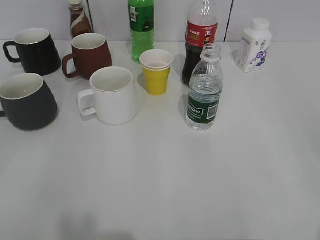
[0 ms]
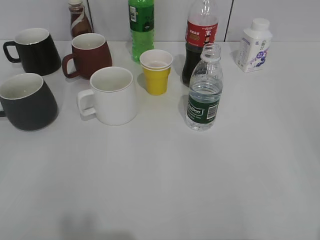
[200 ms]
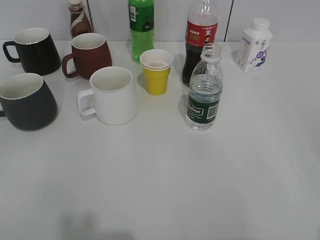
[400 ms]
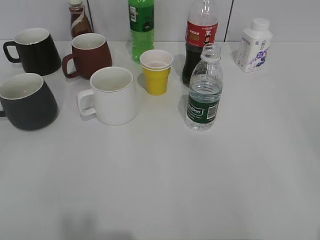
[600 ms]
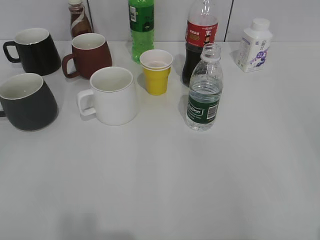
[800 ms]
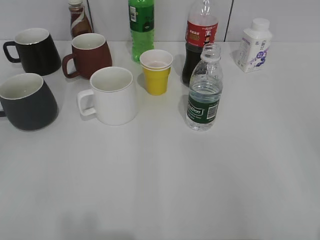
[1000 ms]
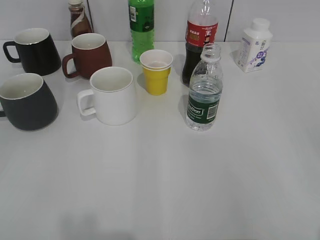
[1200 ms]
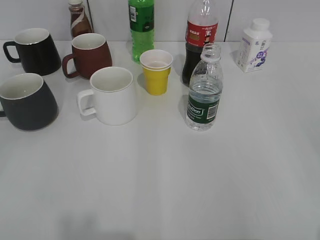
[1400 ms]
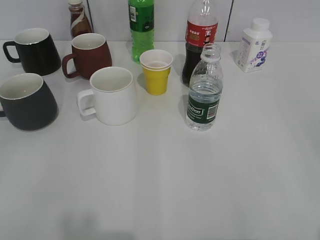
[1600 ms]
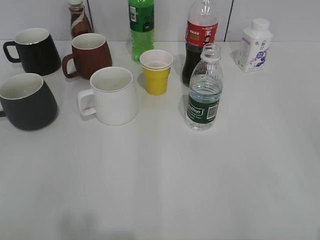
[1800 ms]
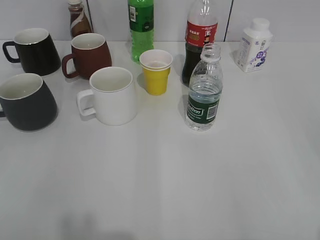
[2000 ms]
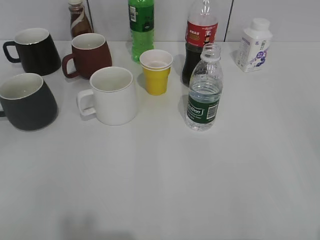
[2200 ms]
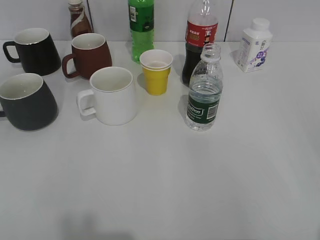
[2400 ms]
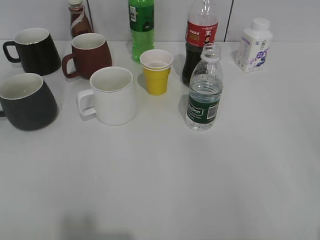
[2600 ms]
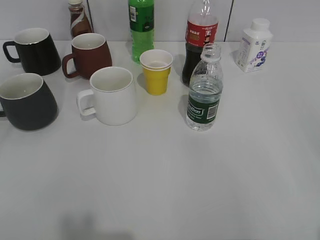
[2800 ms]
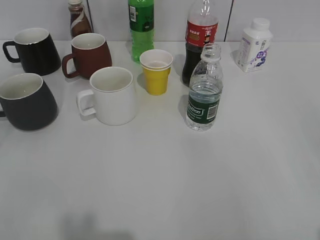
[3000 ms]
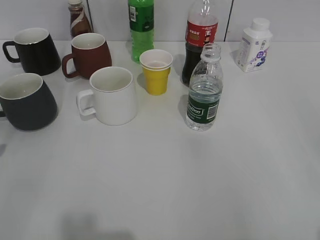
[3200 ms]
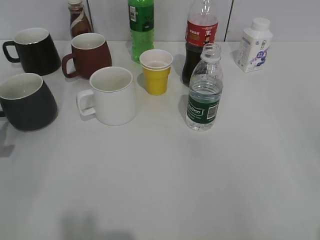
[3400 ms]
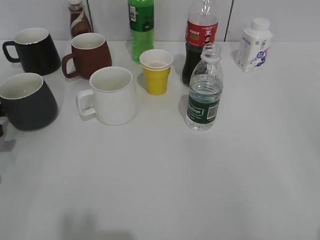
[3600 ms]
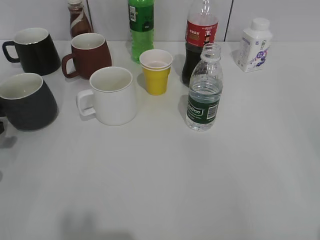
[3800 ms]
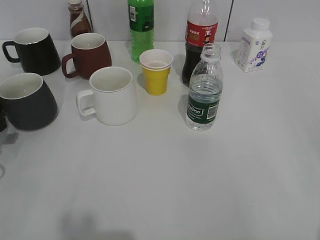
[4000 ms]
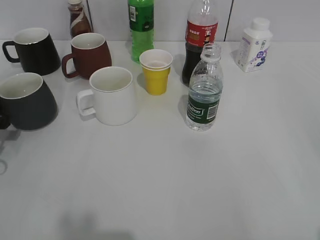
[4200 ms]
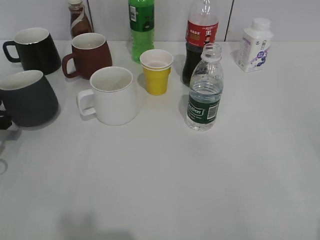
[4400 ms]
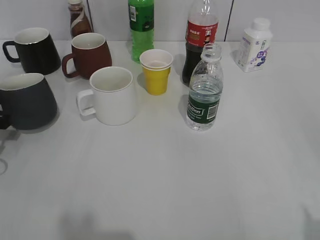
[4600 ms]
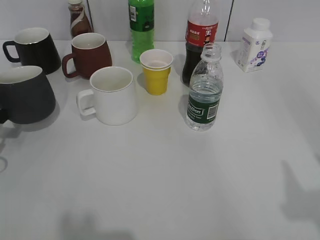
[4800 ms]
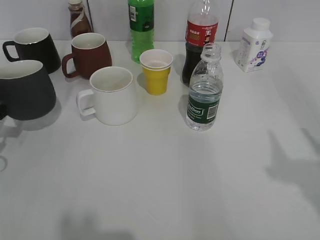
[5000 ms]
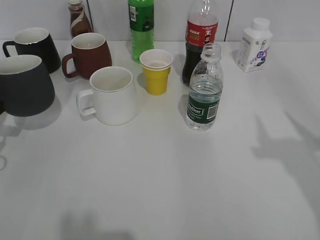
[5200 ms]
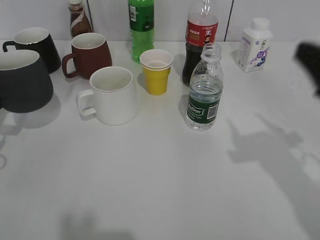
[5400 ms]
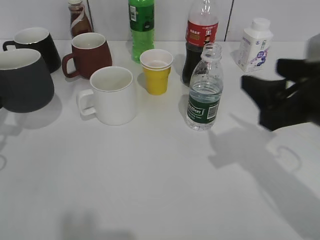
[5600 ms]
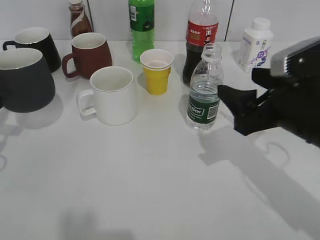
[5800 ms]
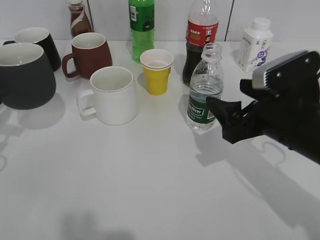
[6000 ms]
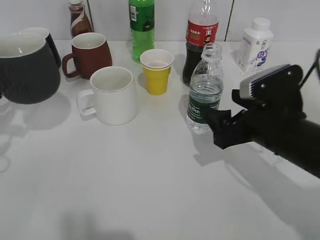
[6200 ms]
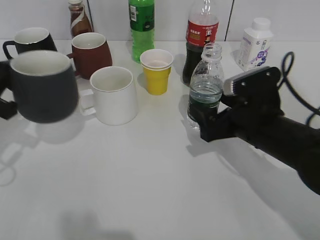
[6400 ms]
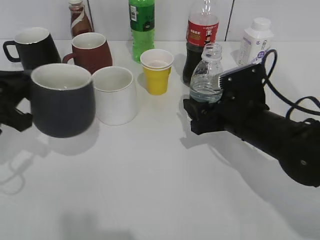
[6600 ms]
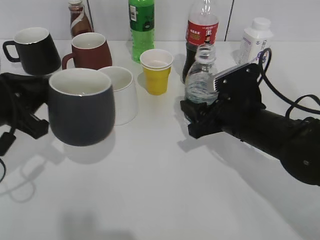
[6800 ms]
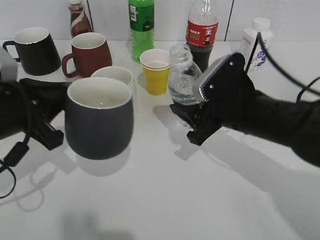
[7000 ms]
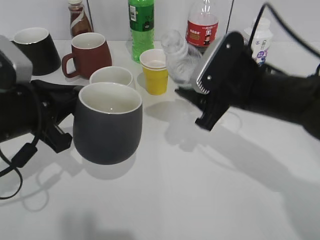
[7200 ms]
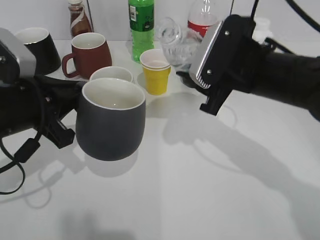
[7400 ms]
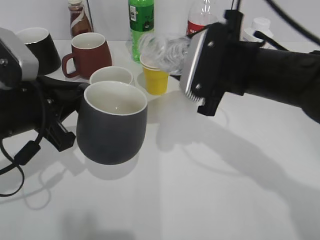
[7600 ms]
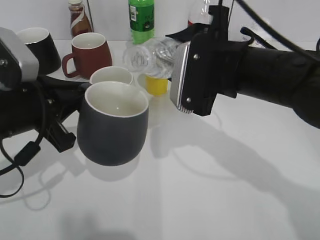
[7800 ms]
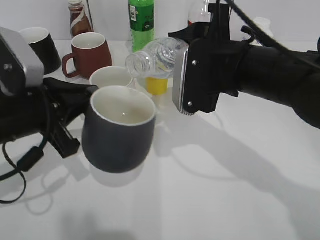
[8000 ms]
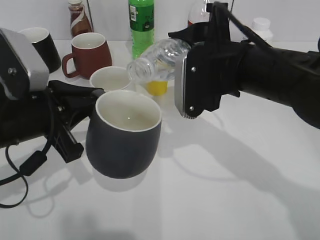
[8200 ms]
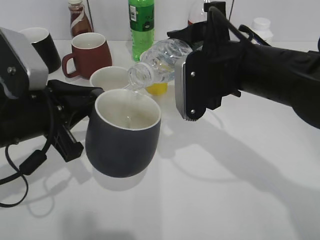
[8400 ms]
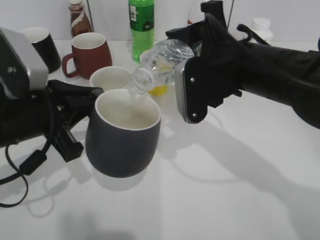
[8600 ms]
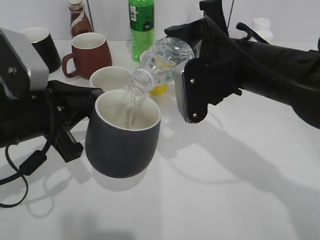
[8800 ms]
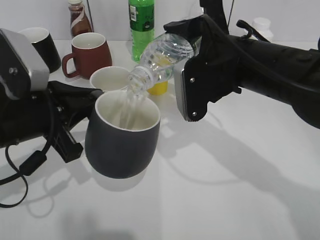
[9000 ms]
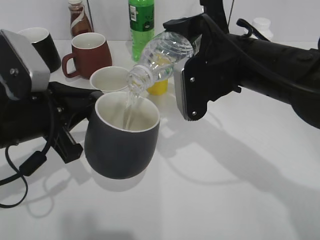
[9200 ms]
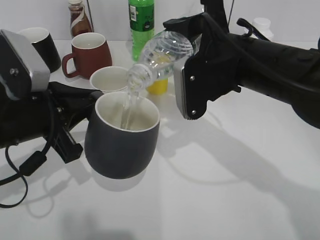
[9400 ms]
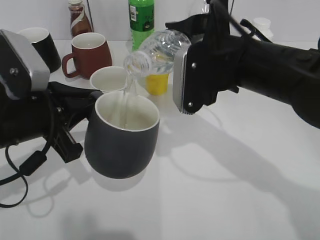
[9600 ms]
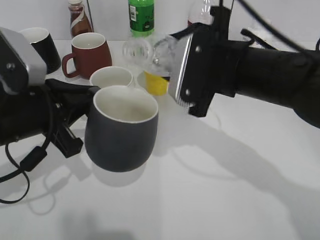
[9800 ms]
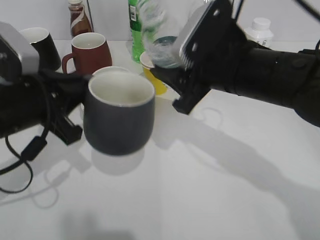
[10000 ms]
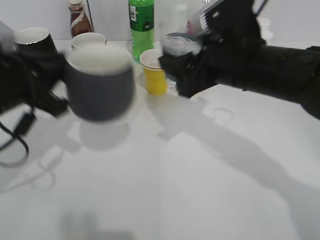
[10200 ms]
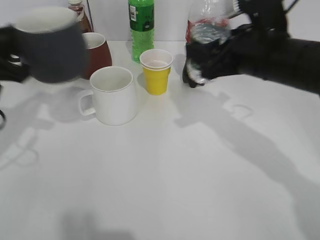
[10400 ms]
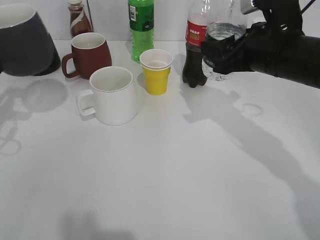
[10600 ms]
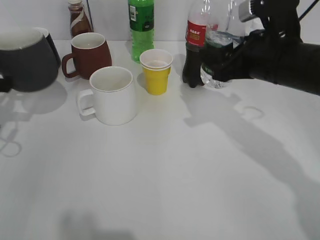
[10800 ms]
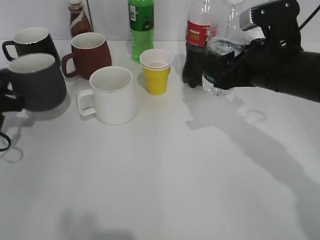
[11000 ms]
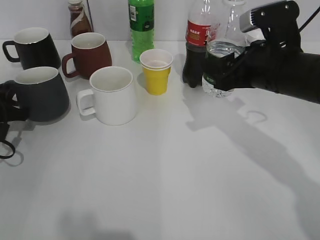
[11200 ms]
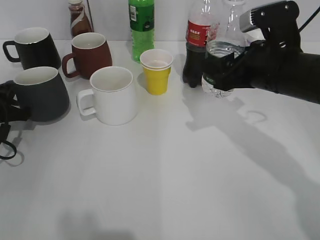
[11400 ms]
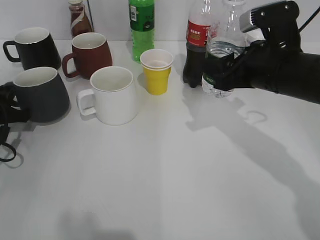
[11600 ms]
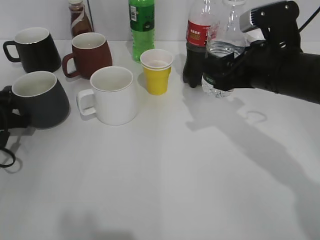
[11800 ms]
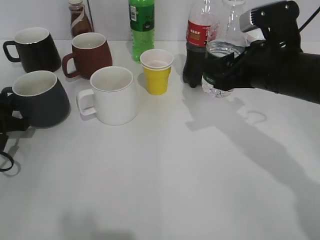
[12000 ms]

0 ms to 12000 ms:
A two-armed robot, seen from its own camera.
Step, 2000 ms to 4400 ms: Grasp the black cup with left gripper.
Step, 4600 ms to 5200 ms: Lift the black cup with left gripper.
Step, 5400 ms to 6600 ms: Grasp the bottle with water with right gripper.
Step, 6800 ms to 10000 ms: Pour the water from bottle to cup with right gripper.
3000 ms to 4400 ms: The left gripper moves downward and forward, roughly 15 cm, and closes its fingers.
4400 ms to 6000 ms: The left gripper heads upward, covering some 5 cm, while the right gripper shifts some 25 cm forward, to the left and downward, and opens up.
6000 ms to 7600 ms: The left gripper is displaced to the right by about 15 cm; the right gripper is displaced to the left and forward by roughly 10 cm, and closes.
9000 ms to 10400 ms: The left gripper heads to the left, covering some 5 cm.
10400 ms to 12000 ms: The left gripper heads downward and to the left, covering approximately 15 cm.

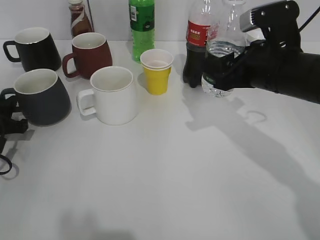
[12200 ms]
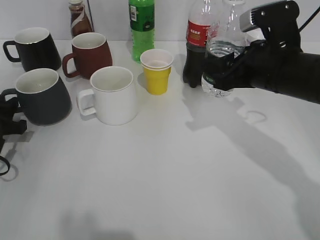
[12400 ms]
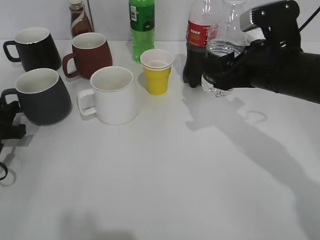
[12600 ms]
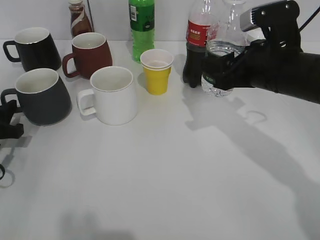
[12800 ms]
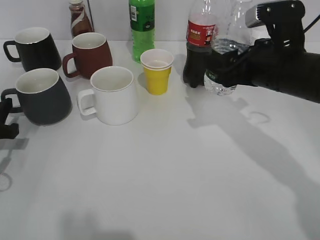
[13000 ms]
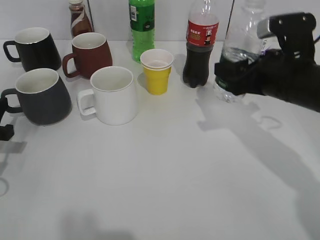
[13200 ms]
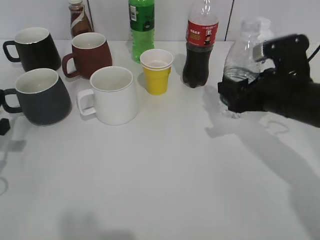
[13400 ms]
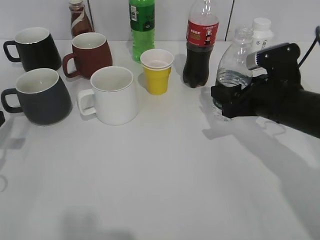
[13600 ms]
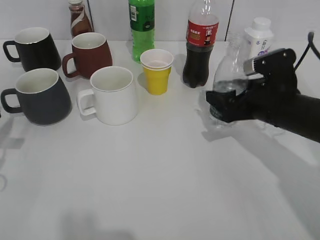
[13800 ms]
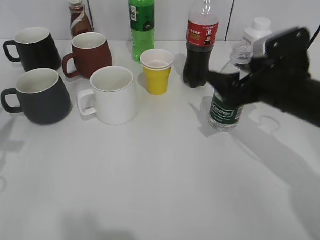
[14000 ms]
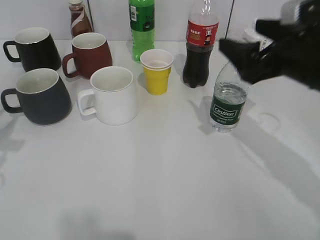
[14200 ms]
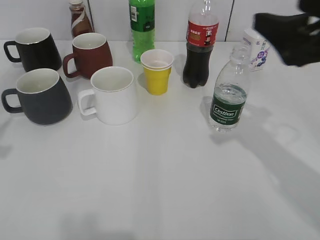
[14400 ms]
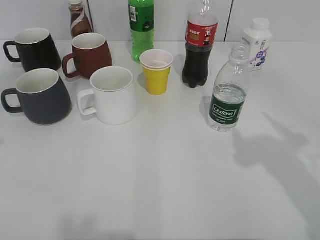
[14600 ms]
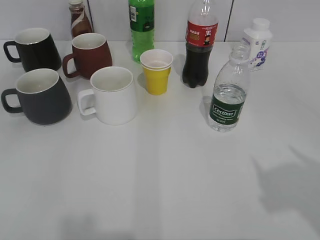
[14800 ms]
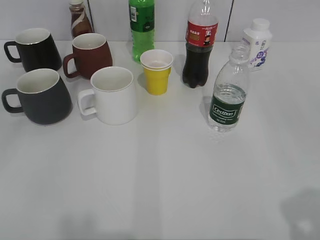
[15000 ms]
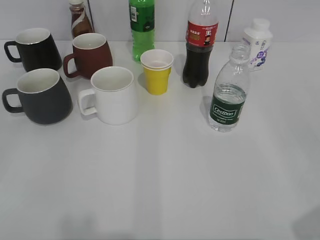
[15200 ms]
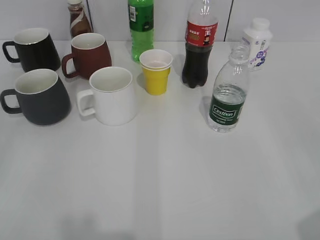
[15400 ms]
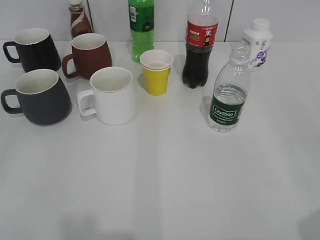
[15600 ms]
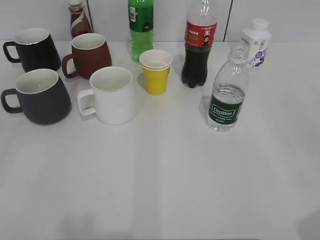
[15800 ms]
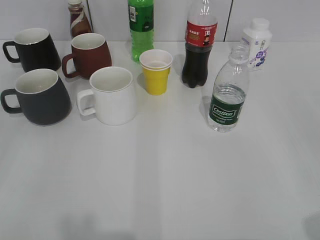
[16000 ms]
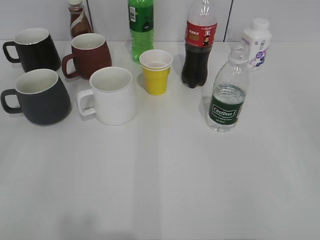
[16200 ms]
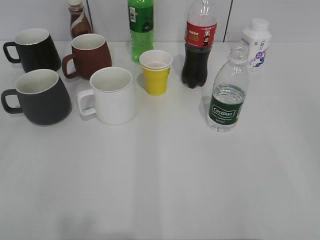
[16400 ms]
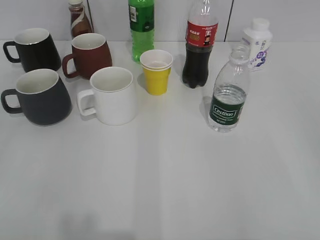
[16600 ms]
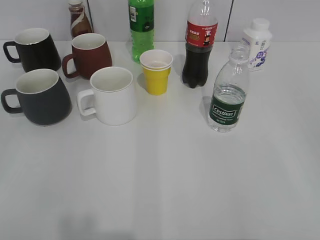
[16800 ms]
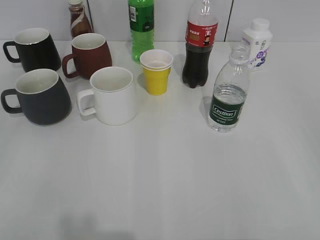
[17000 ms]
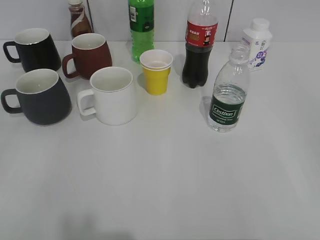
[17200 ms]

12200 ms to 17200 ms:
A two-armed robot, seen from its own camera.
Step, 13200 ms to 13800 ms: Place the water bottle on the table with right gripper.
12200 ms to 13800 ms: The right gripper heads downward, covering approximately 5 cm, while the left gripper travels upward and backward by roughly 10 cm.
13800 ms to 15600 ms: The left gripper is displaced backward and upward by about 25 cm, and opens, while the right gripper moves backward, upward and to the right, about 30 cm, and opens and closes again.

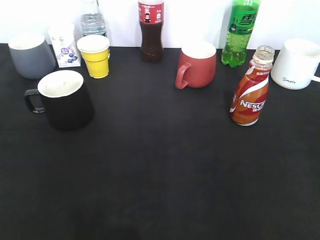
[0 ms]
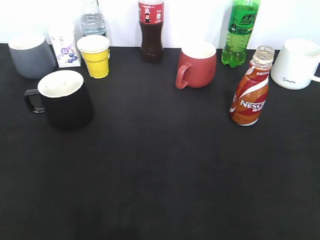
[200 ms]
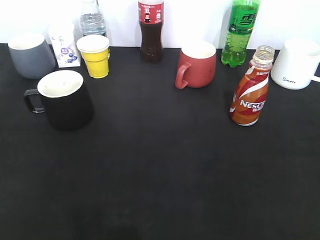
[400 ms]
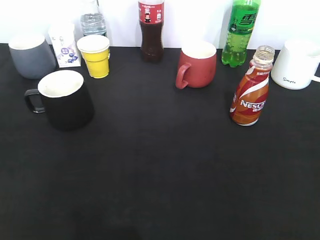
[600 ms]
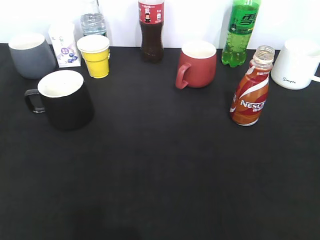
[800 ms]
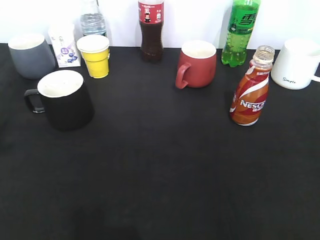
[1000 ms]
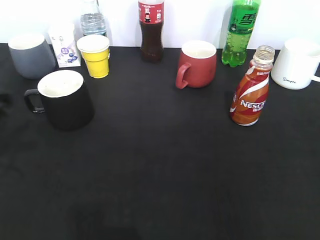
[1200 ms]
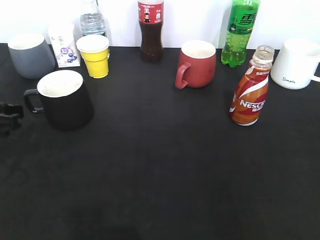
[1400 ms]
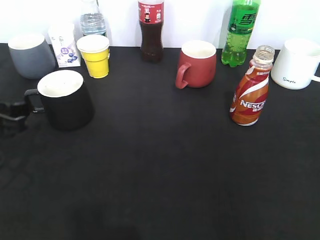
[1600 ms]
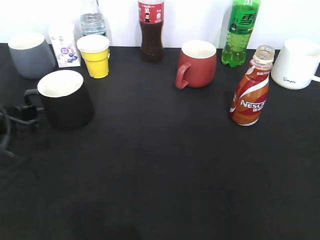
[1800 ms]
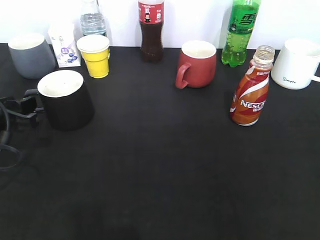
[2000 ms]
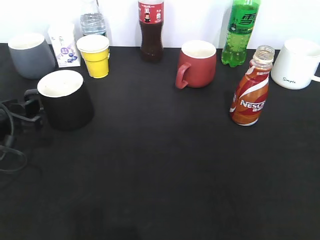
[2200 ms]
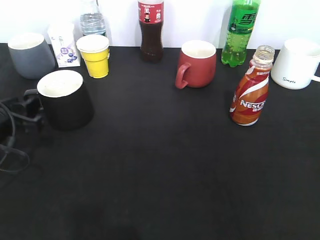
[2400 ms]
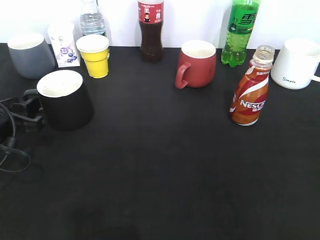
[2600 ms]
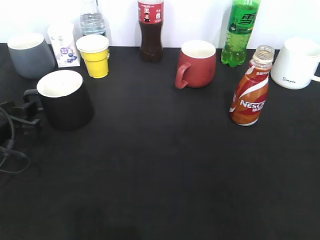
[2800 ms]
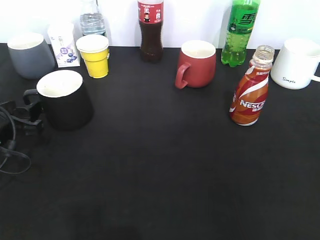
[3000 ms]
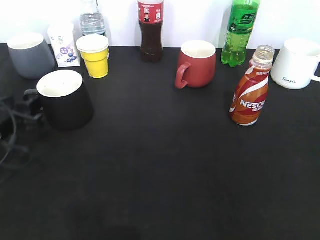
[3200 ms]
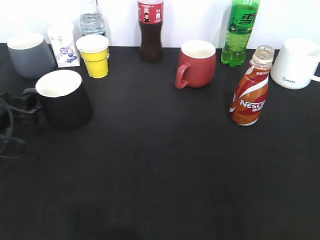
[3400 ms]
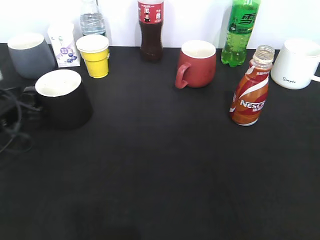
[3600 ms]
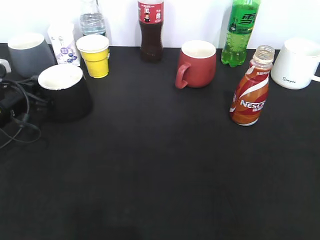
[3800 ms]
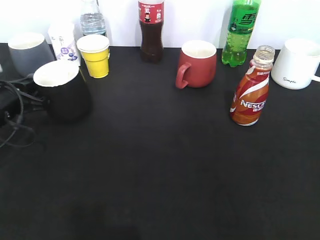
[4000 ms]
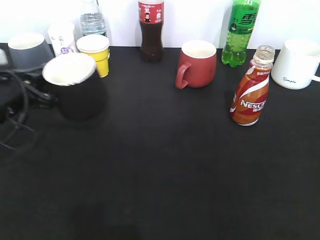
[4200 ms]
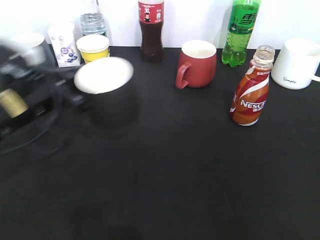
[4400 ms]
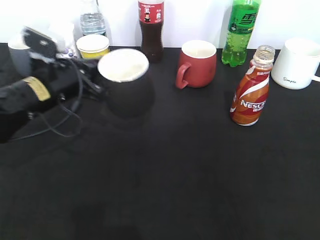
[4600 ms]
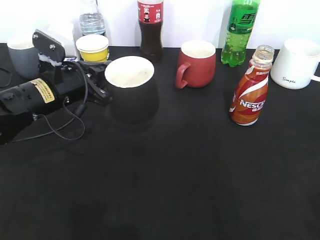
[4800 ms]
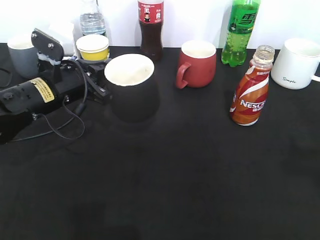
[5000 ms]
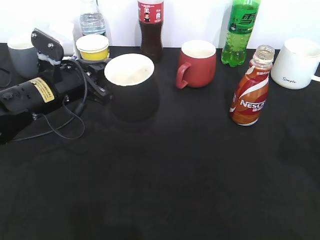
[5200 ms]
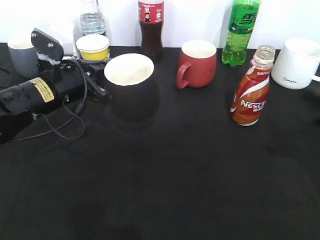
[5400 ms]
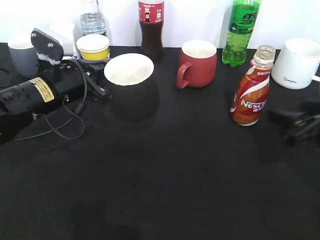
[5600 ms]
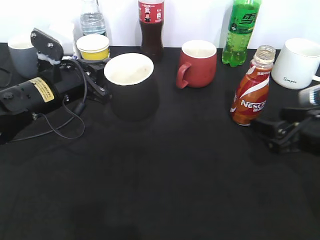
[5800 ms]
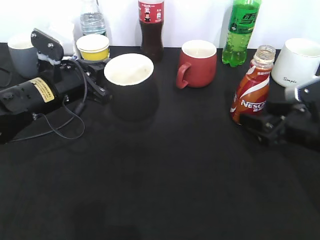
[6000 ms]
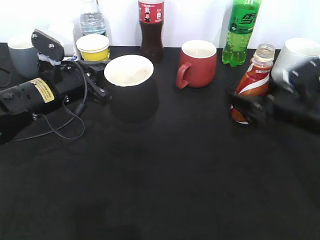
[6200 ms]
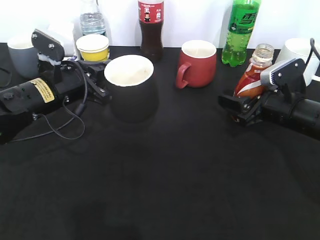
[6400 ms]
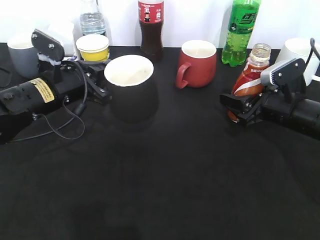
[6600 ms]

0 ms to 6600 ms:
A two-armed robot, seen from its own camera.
Step, 600 ms to 3800 ms: Grasp the black cup with left gripper.
Step, 4000 ms to 4600 ms: Lift the black cup with left gripper.
0 ms to 1600 ms: The left gripper is displaced forward and downward by about 25 cm.
1600 ms to 3200 ms: The left gripper moves downward, some 5 cm.
3200 ms to 5000 ms: The left gripper travels to the right and forward by roughly 10 cm, and closes its fingers; the right gripper travels forward by some 15 cm.
5000 ms to 6600 ms: The right gripper heads forward and downward, covering some 25 cm, and opens and closes again.
